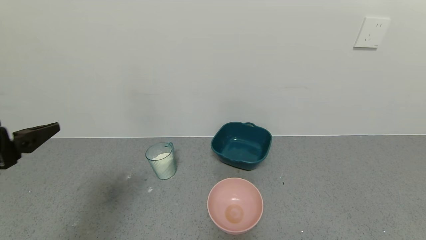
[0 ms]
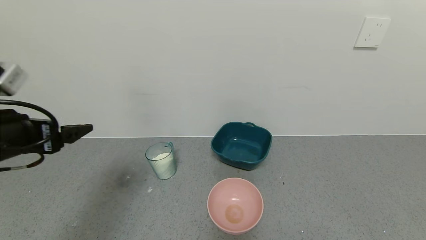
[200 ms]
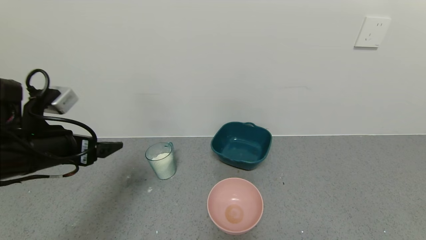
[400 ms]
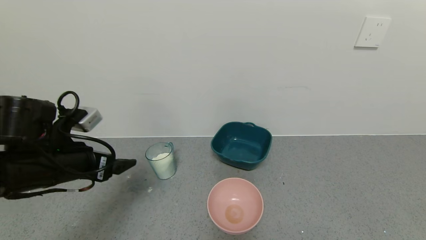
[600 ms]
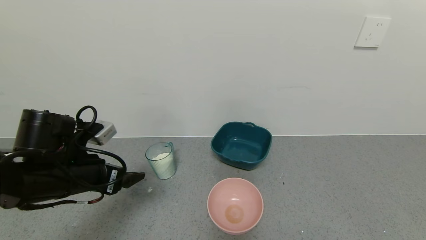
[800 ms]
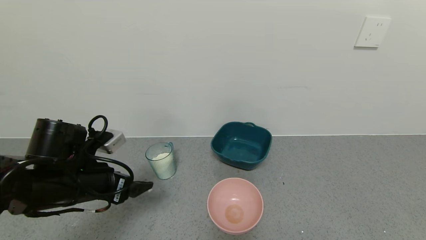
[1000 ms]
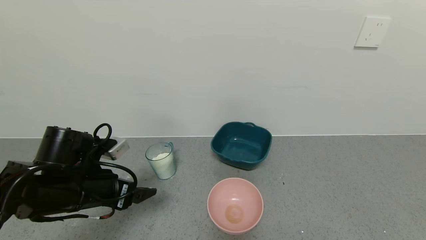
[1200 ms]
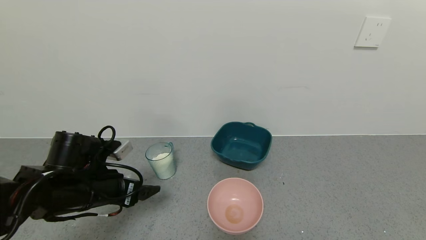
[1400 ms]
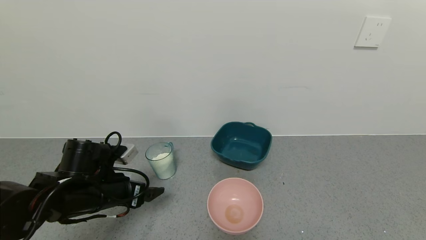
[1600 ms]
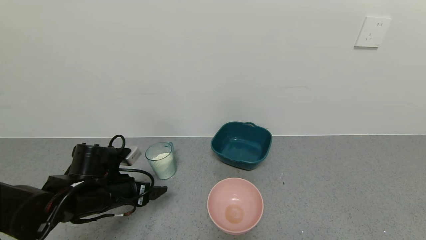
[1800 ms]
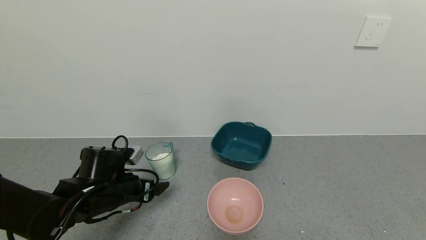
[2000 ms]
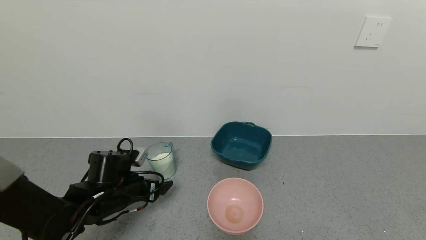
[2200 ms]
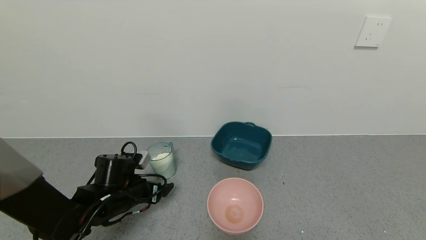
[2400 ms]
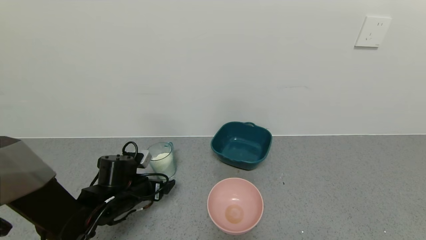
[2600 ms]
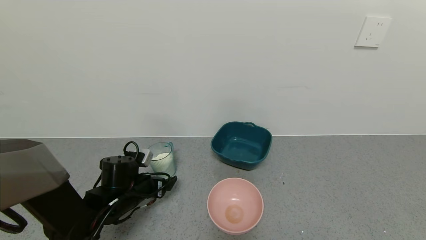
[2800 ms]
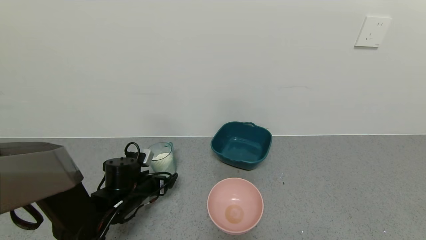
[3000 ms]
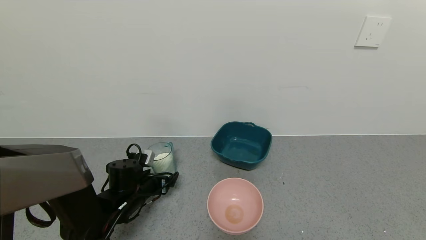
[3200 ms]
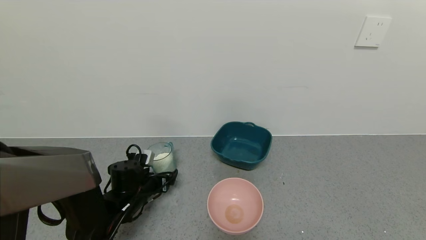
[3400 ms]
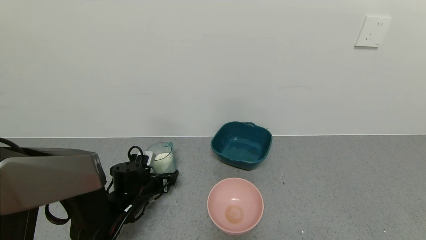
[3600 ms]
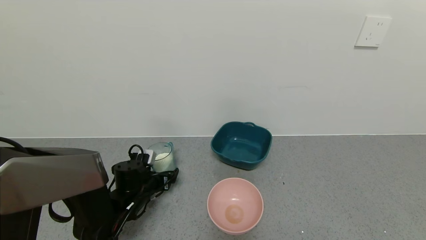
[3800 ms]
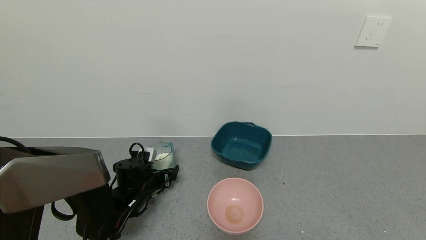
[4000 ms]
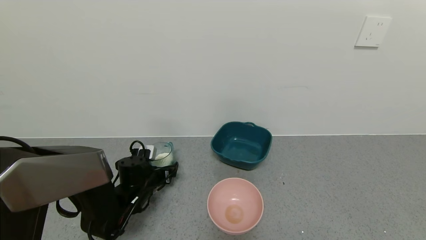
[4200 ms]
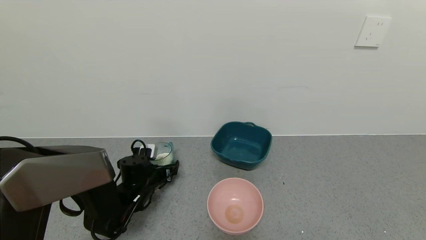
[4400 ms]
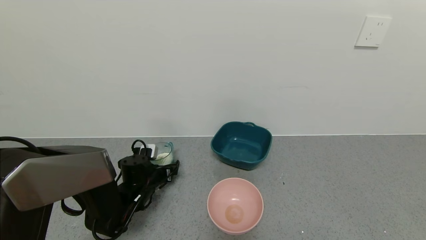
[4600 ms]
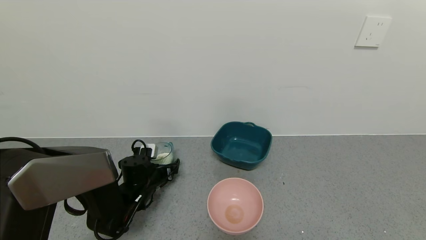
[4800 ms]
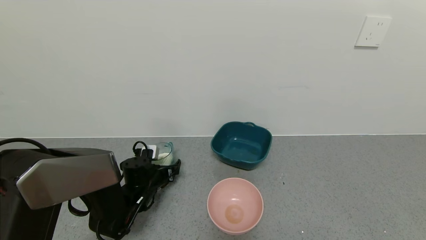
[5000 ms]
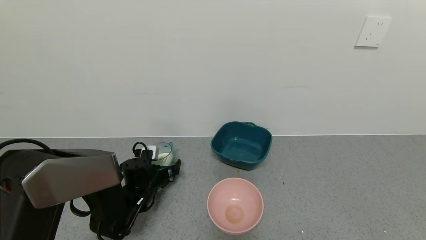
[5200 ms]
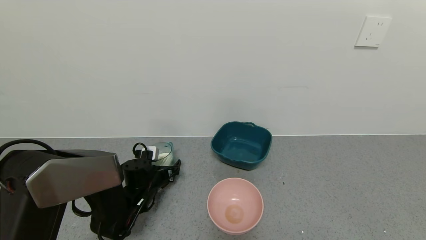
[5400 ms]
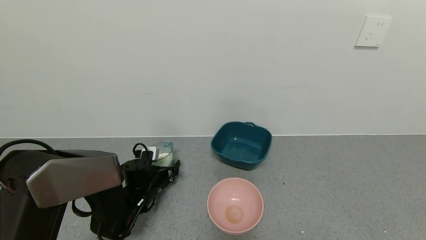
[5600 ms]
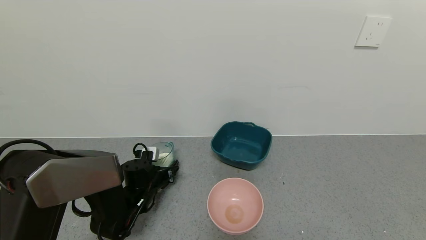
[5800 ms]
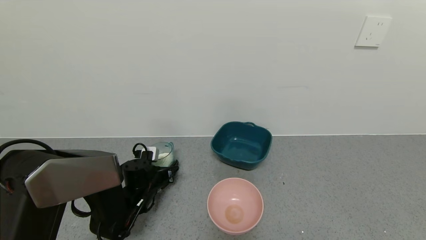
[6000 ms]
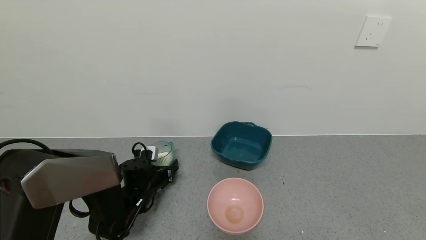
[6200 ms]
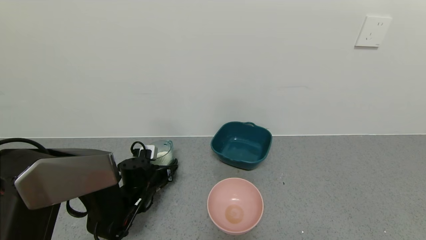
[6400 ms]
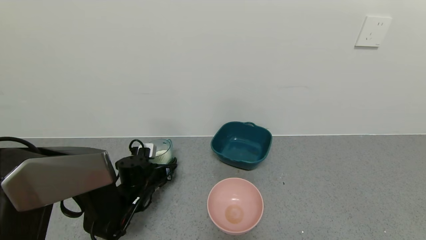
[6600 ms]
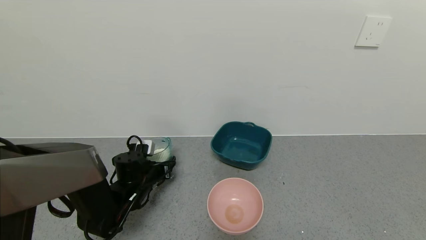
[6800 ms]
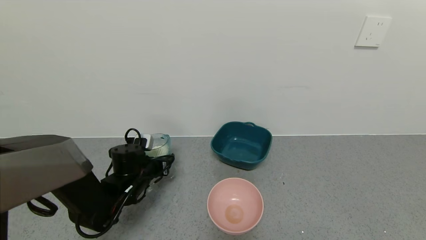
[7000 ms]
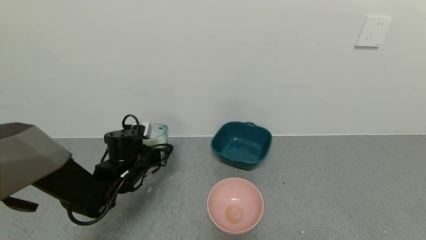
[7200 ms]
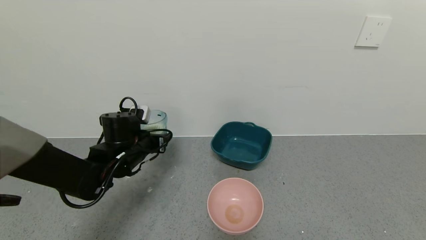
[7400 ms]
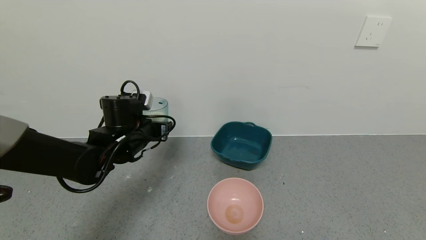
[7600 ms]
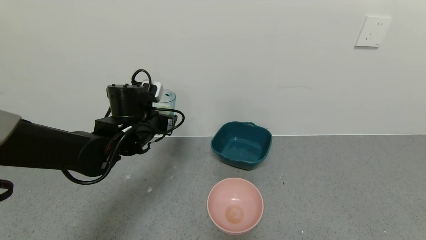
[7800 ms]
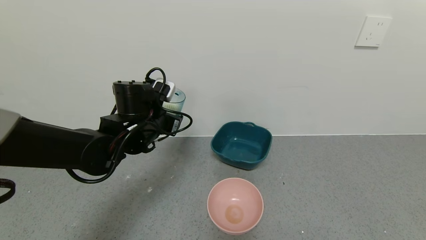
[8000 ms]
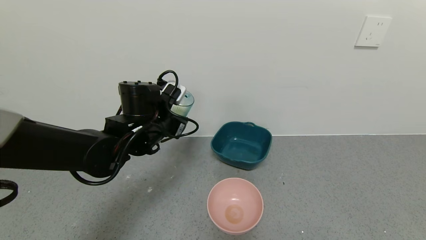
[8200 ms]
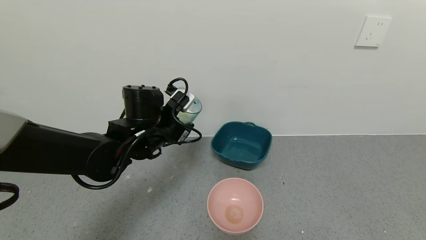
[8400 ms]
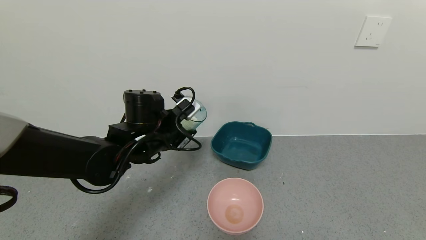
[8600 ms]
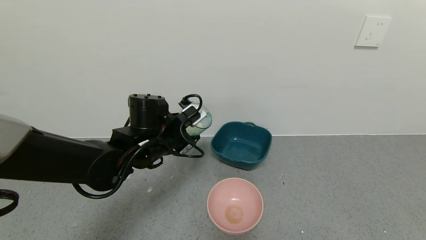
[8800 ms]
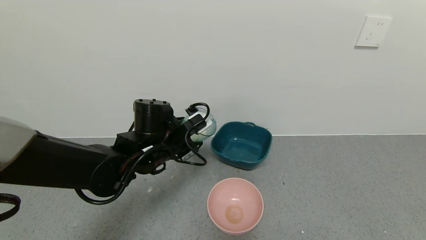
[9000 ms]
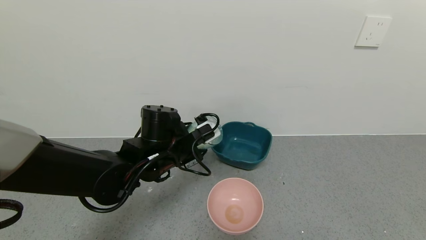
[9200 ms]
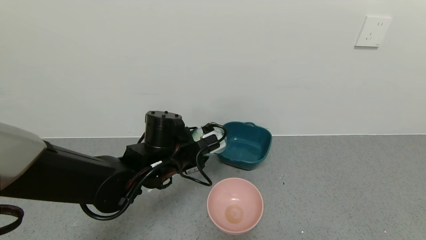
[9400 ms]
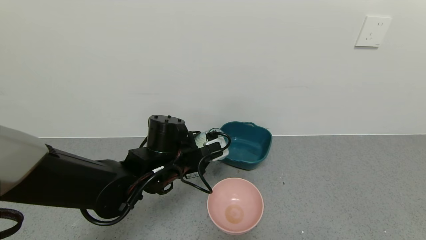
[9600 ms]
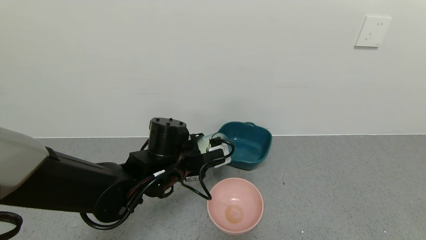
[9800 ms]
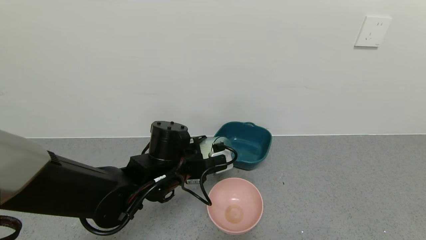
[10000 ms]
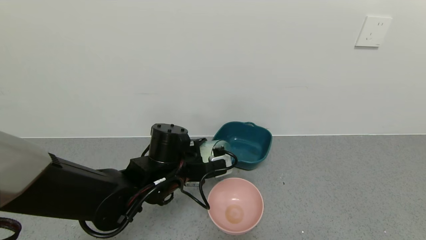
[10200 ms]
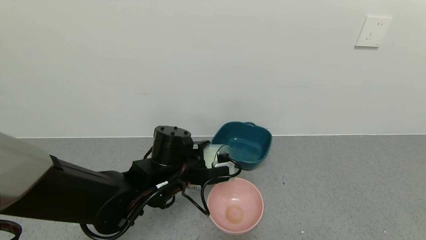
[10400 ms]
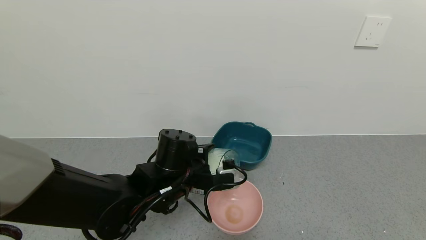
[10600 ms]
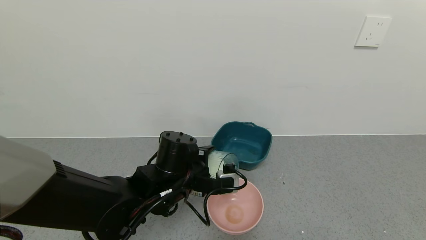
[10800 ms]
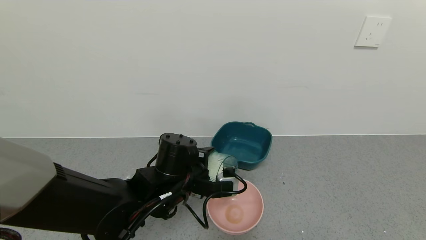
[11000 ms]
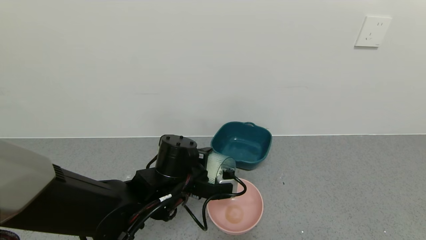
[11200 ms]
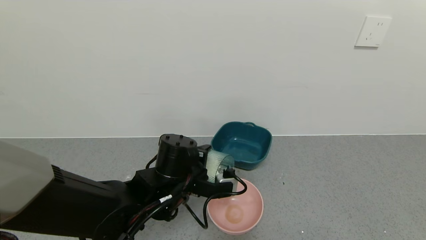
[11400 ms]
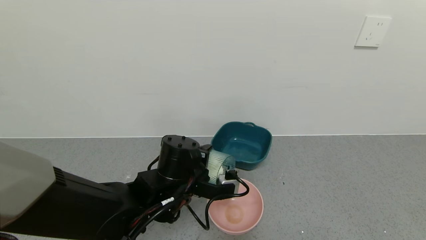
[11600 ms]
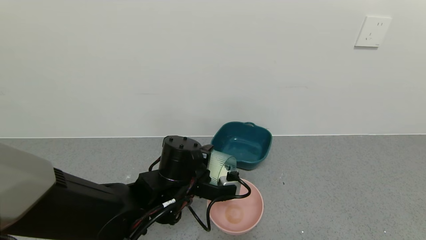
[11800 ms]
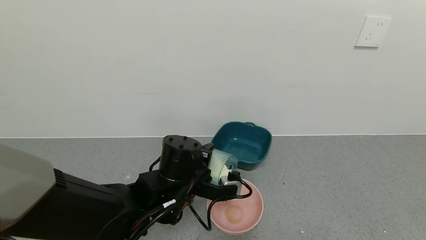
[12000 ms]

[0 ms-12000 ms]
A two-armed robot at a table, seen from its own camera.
Task of the whole recording: use a gripper to pick up the cup and pour the powder into a bowl or tray.
Step, 0 ms to 6000 ms: Grasp the glass of powder with the left gripper.
0 ms to 1600 ms: The left gripper travels downward and forward by approximately 20 cm.
1600 ms to 3000 ms: The left gripper is displaced downward and forward by about 10 cm.
3000 ms to 4400 ms: The left gripper ends up roughly 5 cm from where it was.
4400 ms to 6000 ms: The left gripper closes.
6000 ms to 7600 ms: The left gripper is displaced upward by some 15 cm.
7600 ms to 9000 ms: The left gripper shifts about 5 cm to the right.
9000 ms to 10400 ms: The left gripper moves roughly 5 cm.
10400 ms to 12000 ms: The grippers make only small movements.

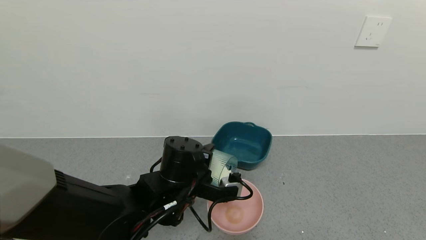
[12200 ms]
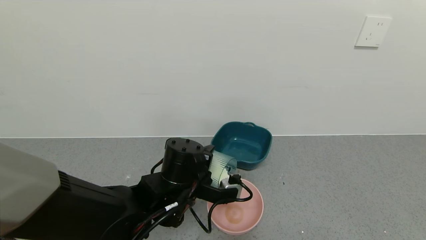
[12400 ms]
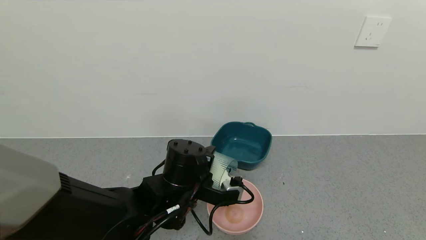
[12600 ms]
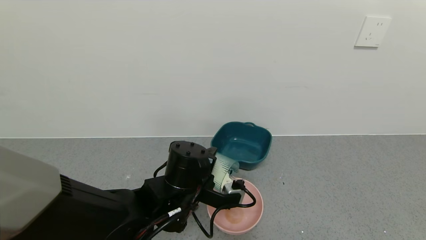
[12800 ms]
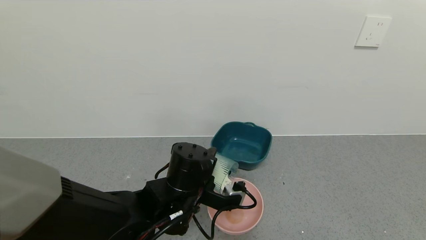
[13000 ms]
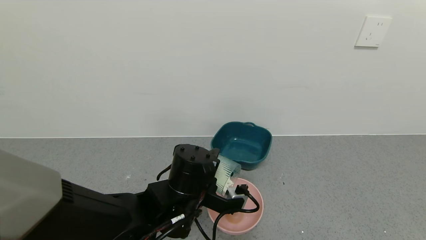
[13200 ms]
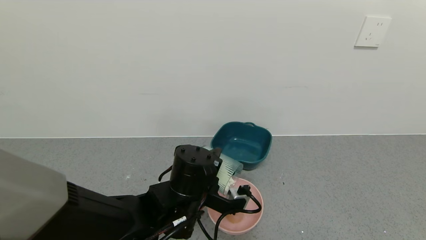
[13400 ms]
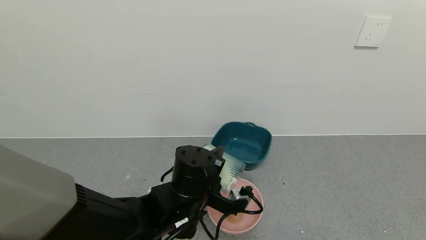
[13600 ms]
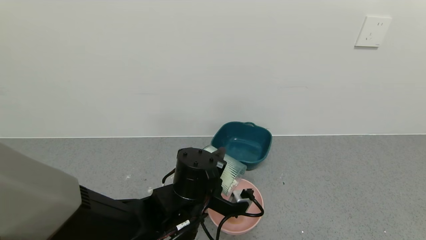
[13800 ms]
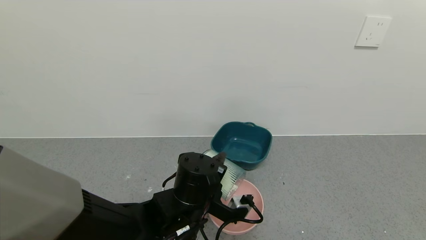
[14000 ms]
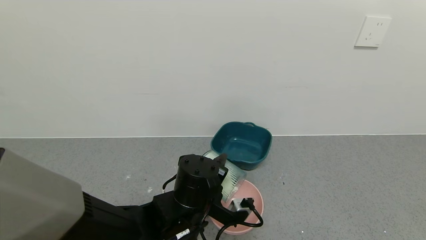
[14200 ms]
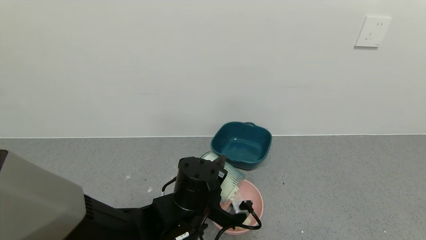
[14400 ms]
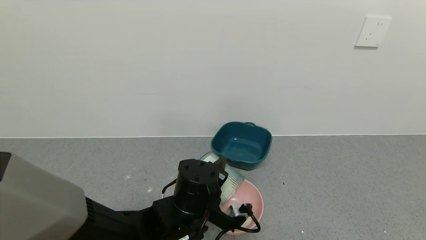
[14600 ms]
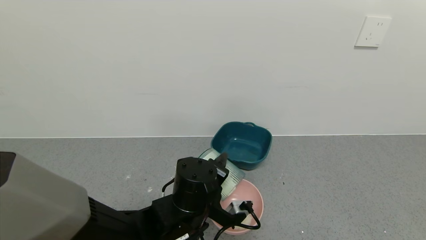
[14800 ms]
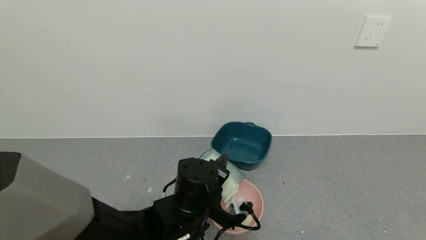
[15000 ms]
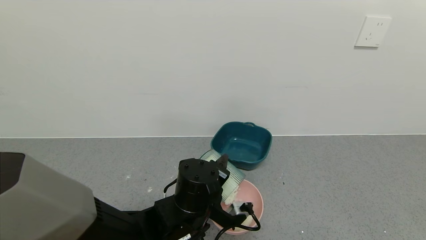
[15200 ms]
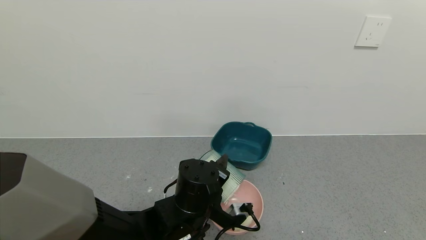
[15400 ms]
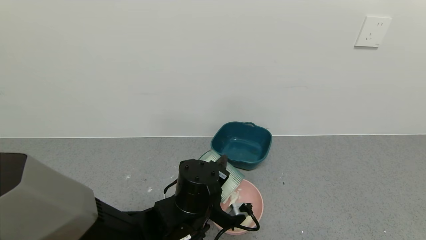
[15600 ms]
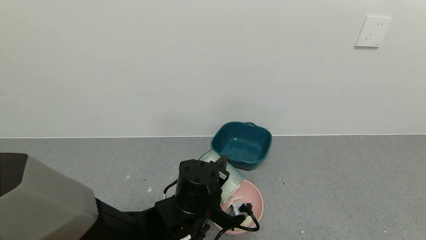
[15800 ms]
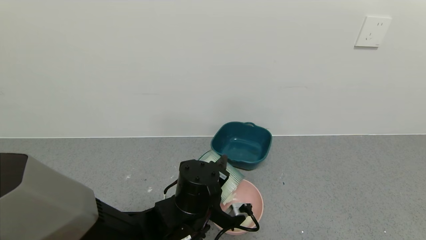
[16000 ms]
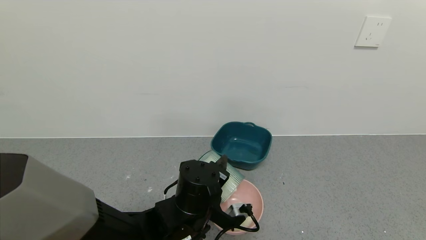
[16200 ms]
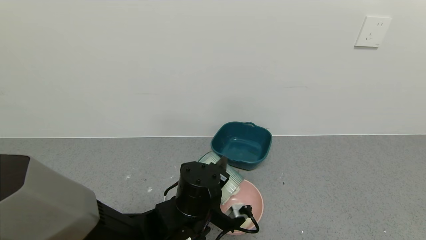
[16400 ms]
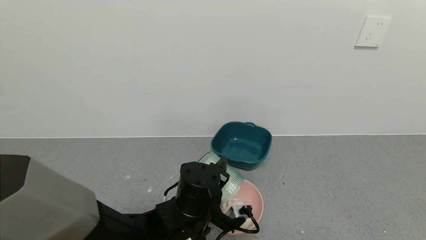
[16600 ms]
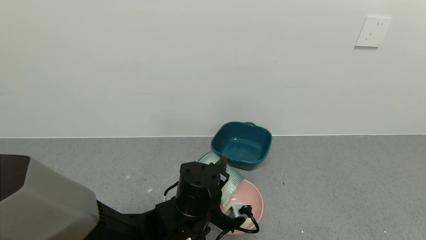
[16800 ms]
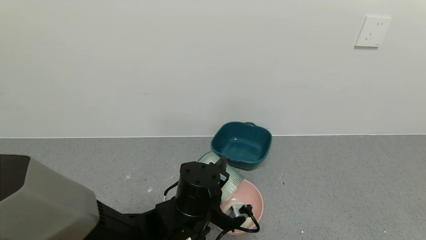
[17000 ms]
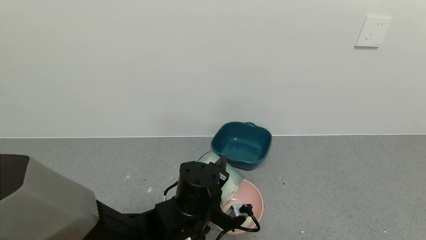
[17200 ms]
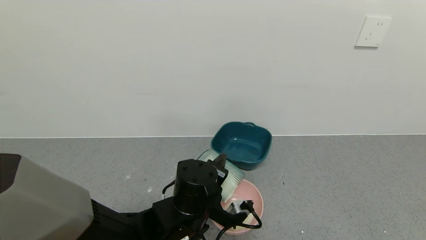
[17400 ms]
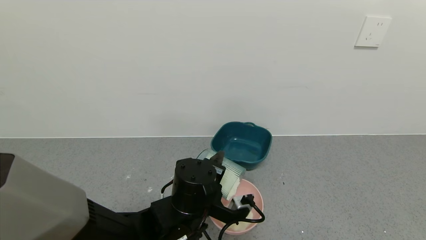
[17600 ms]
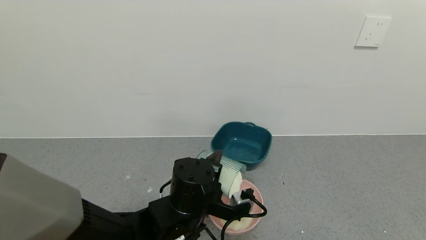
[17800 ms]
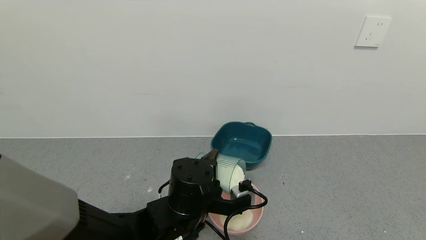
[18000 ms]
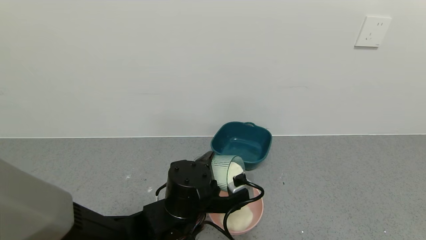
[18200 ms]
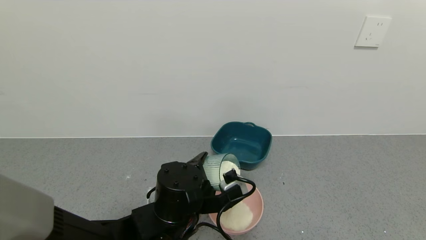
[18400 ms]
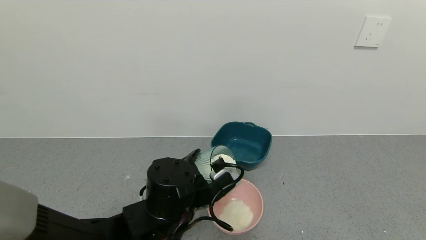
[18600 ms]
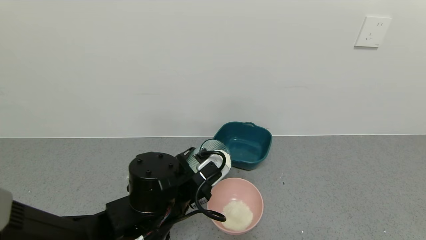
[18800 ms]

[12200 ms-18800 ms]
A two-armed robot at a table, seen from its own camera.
Task of the whole recording: use a gripper to pick up the cup and pour the powder into a bowl or tray.
Step, 12200 ms to 17400 ms: Pour the powder into the pink bowl with the left gripper.
12200 ms to 13800 ms: The grippers move only a little.
13800 ms to 15400 ms: There are only small adjustments of the grippers.
15400 ms to 17200 ms: Both grippers stay put.
17200 ms to 18800 ms: The left gripper moves some 5 cm.
